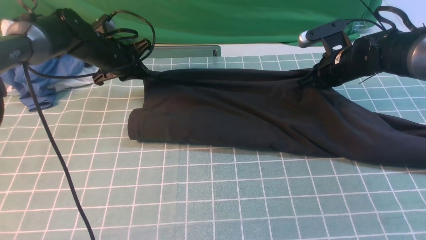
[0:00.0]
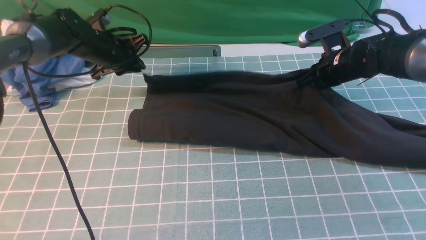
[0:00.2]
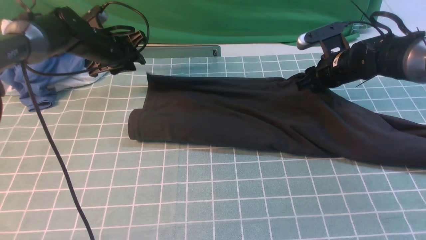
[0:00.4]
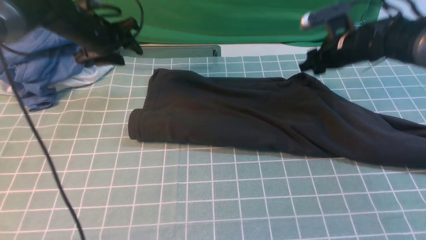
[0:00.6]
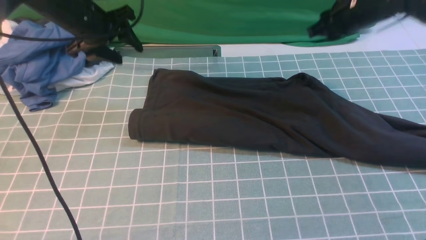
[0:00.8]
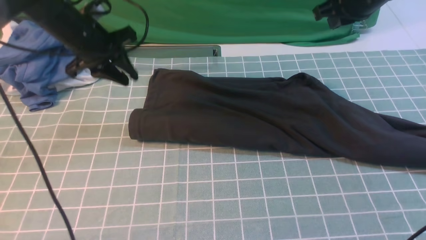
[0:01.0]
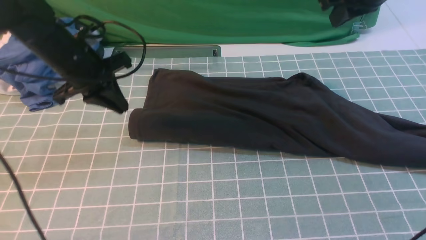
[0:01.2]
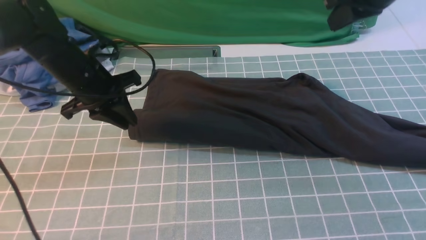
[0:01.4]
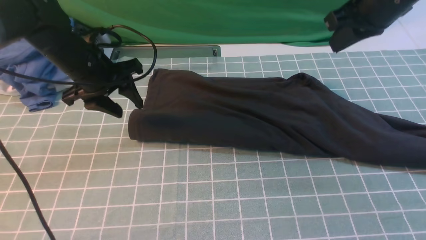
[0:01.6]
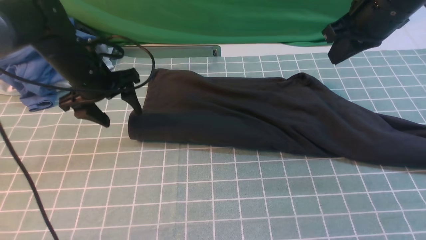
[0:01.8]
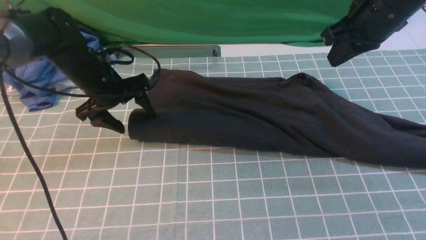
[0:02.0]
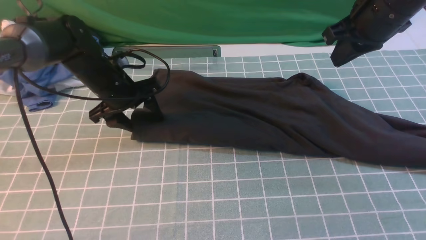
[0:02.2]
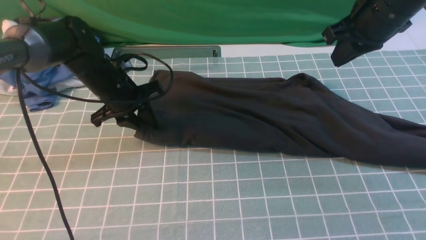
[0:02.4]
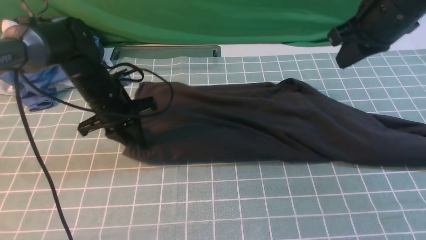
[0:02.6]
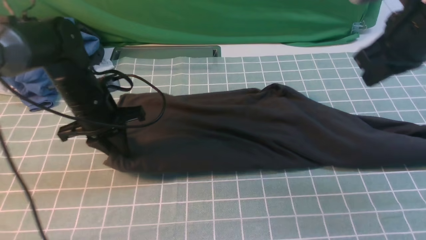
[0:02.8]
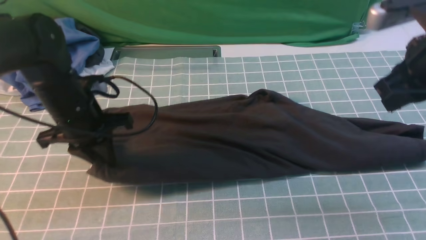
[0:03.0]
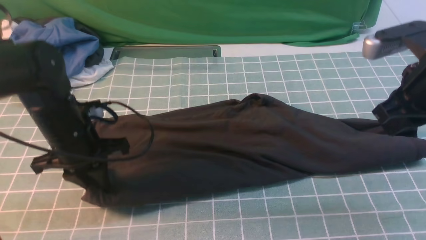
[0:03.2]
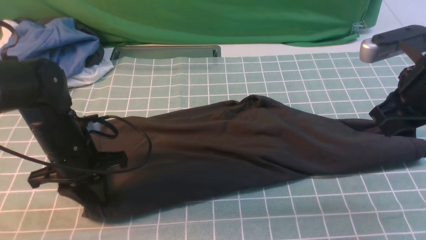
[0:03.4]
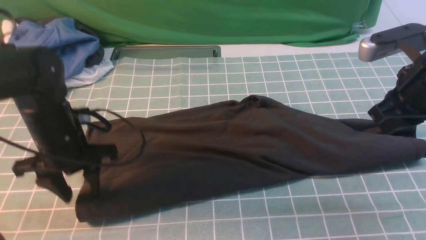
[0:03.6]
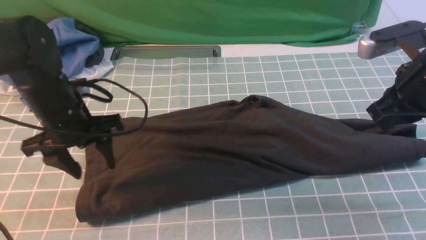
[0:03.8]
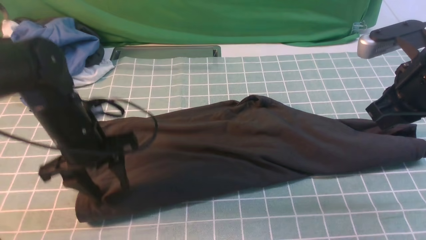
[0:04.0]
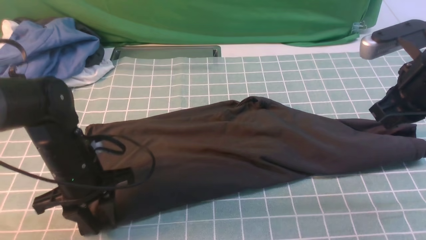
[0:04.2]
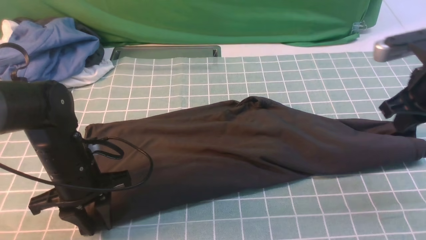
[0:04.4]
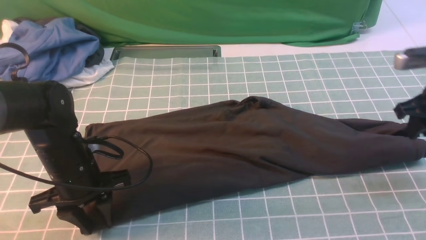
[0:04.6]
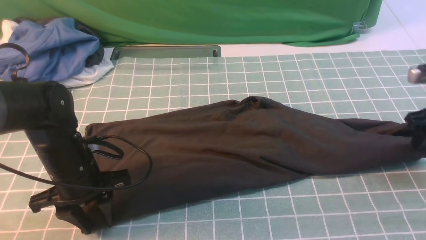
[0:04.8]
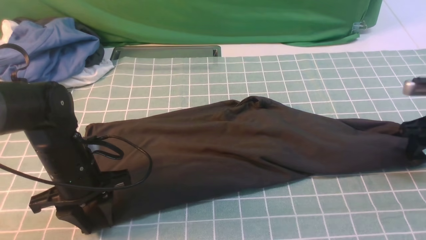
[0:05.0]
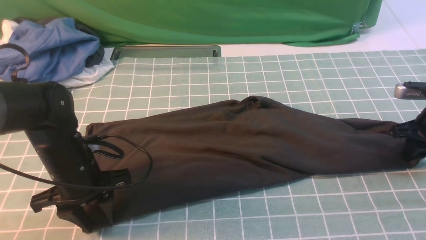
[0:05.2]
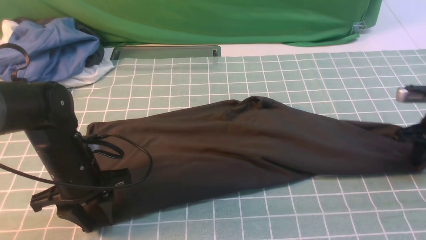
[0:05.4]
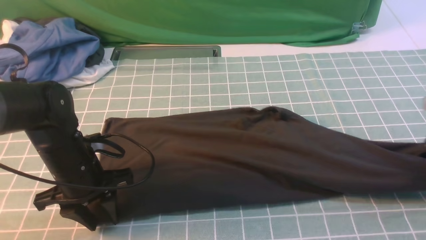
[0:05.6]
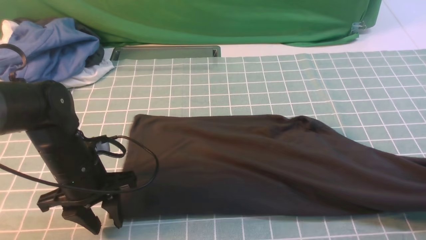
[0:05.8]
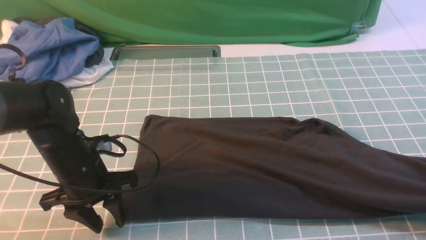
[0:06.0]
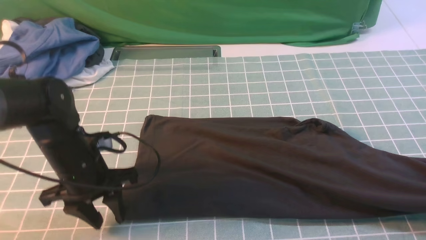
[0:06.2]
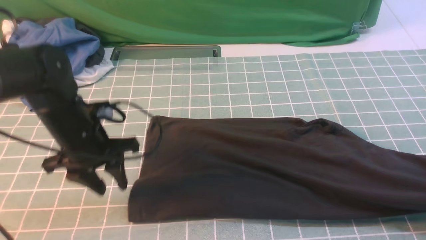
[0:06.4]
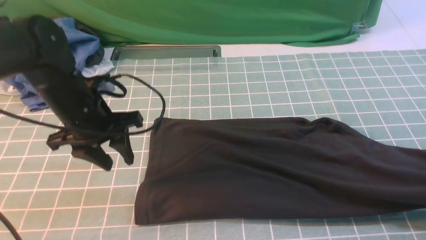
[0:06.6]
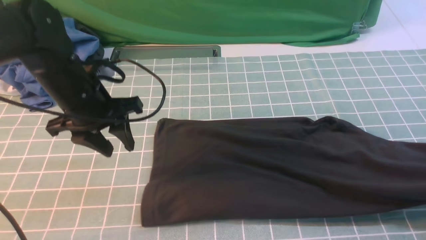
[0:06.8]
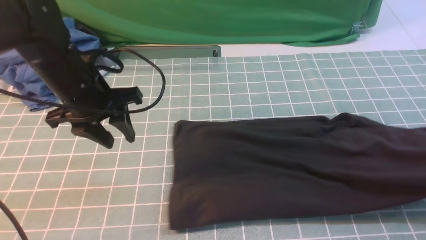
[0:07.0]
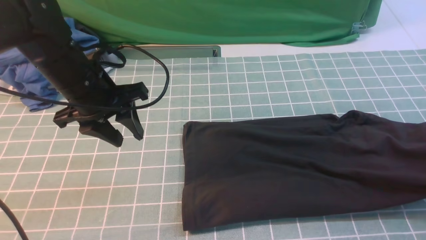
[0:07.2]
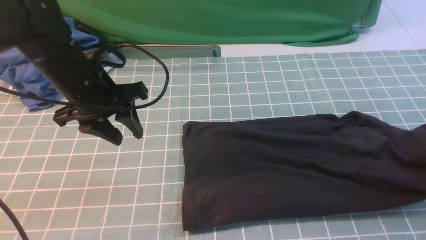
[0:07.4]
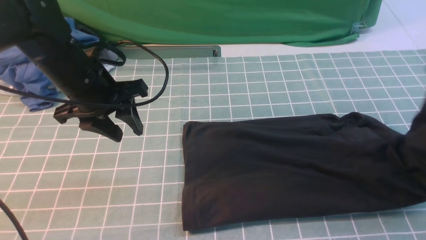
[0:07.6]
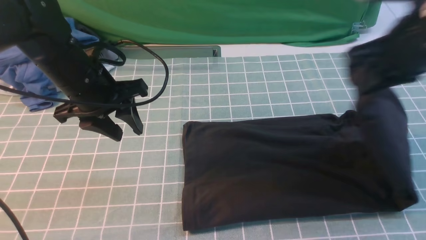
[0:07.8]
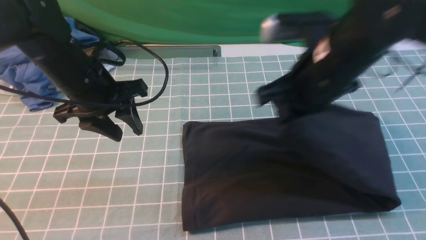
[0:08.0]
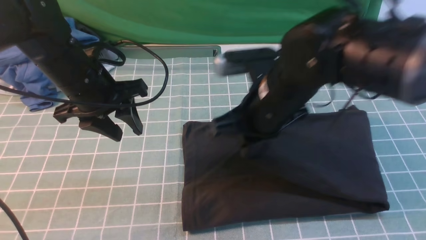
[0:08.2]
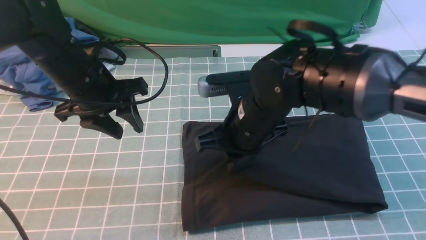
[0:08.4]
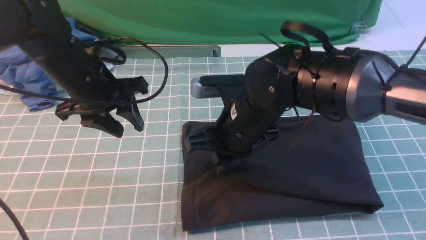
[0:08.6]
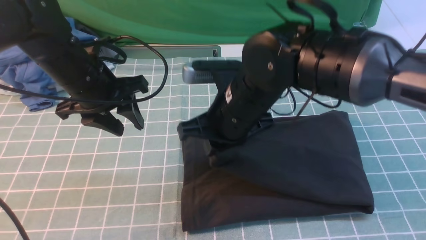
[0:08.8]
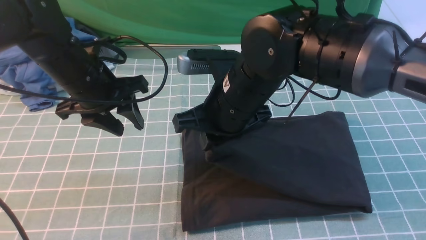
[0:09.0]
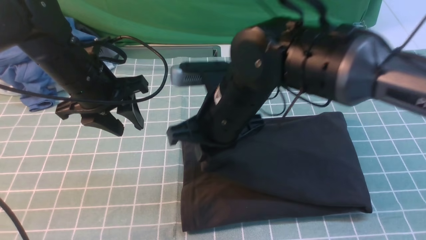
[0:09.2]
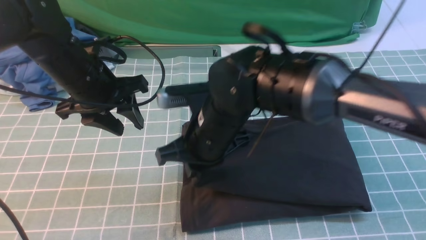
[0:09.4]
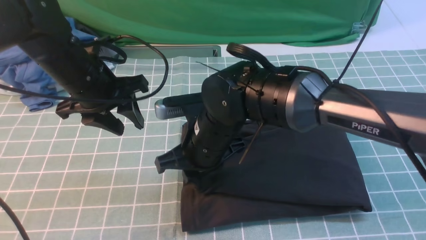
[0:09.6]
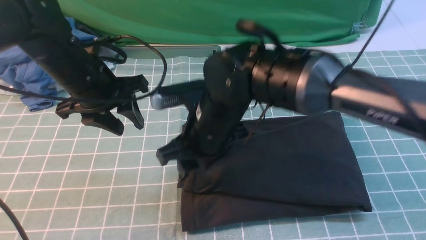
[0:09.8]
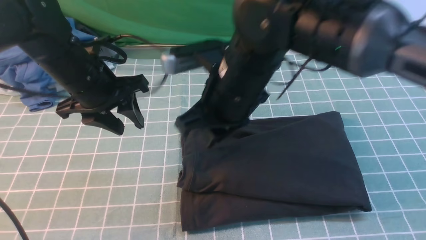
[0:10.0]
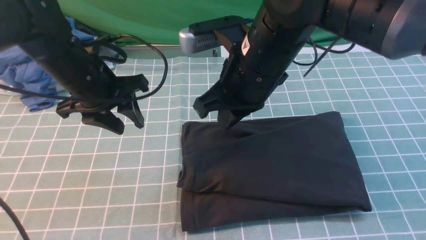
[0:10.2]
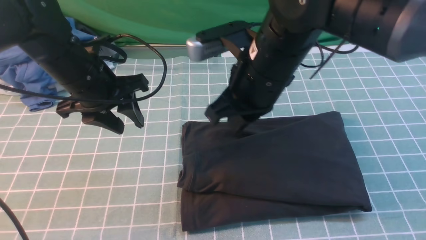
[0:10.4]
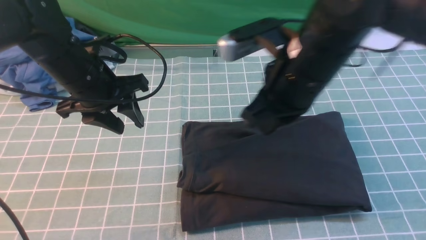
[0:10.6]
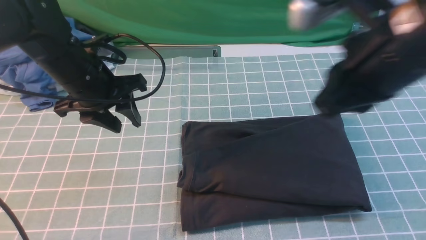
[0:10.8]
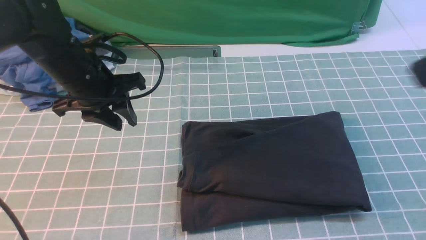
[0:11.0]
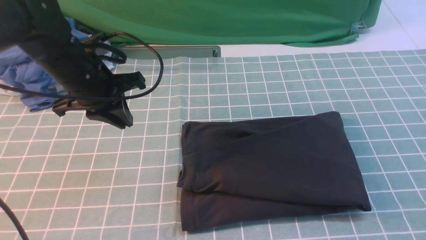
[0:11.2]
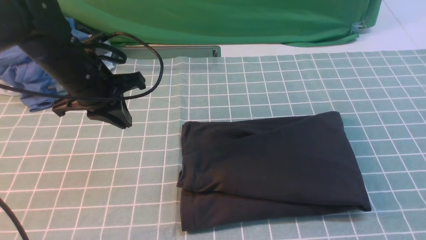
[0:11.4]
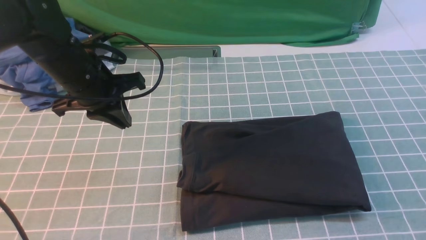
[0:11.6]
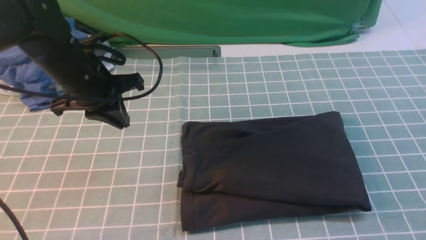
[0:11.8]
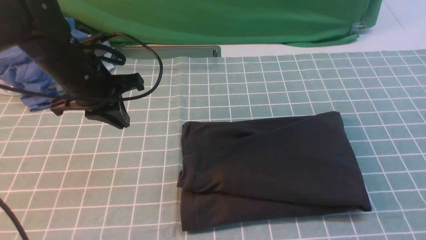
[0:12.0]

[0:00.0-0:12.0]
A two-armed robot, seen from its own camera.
Step, 0:01.2 to 0:06.6: use the right arm to clamp the right edge of the fabric.
Step, 0:06.8 to 0:10.0: use the right arm to drag the right edge of the fabric to the left and folds it over the left edge.
0:00.0 to 0:01.6: The left gripper heads backward, covering roughly 10 cm, and opens its fingers, while the right gripper travels upward by some 20 cm, and opens, then closes again.
0:01.6 to 0:03.0: Both grippers move backward, some 10 cm. The left gripper closes its fingers.
0:03.0 to 0:04.4: The right gripper is displaced downward by approximately 5 cm. The left gripper goes some 5 cm backward.
0:04.4 to 0:06.0: The right gripper moves to the right and backward, roughly 15 cm, and opens, then closes once more.
0:06.0 to 0:07.6: The left gripper moves upward and forward, approximately 10 cm. Meanwhile the right gripper travels to the left, upward and forward by approximately 20 cm.
0:07.6 to 0:09.0: The right gripper is displaced to the left by roughly 30 cm.
0:09.0 to 0:10.4: The right gripper travels upward and to the right by roughly 10 cm, and opens, then closes again.
0:10.4 to 0:12.0: The left gripper closes. Meanwhile the right gripper goes roughly 35 cm backward and to the right.

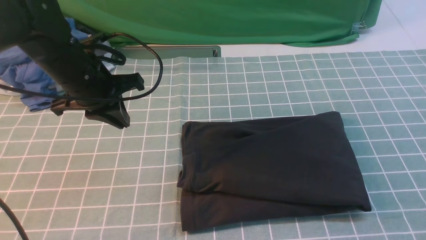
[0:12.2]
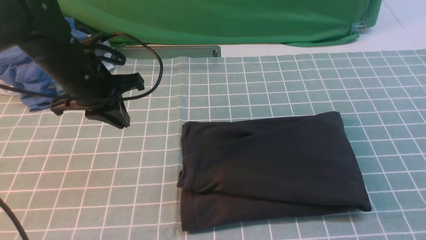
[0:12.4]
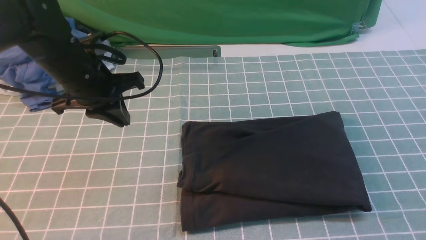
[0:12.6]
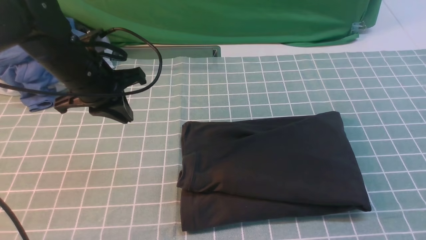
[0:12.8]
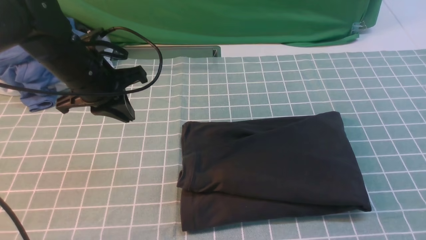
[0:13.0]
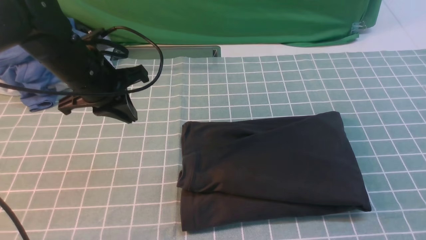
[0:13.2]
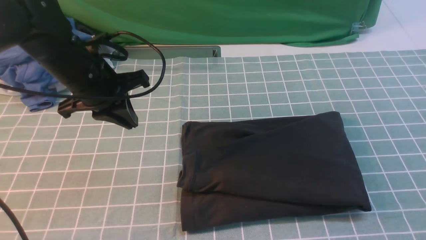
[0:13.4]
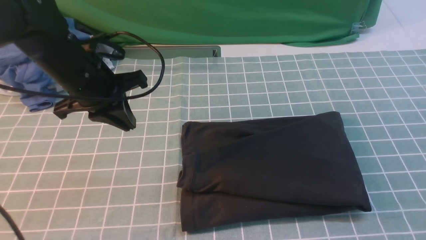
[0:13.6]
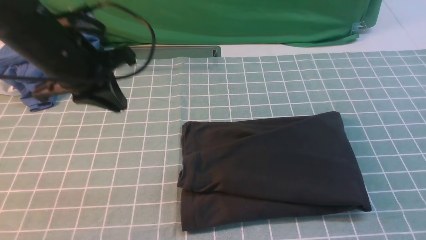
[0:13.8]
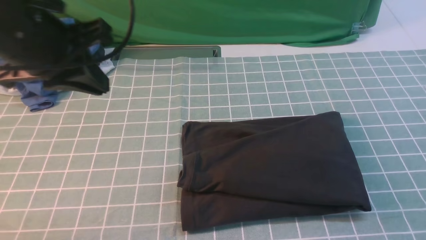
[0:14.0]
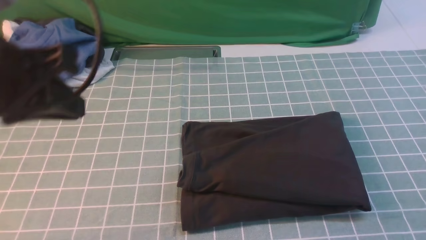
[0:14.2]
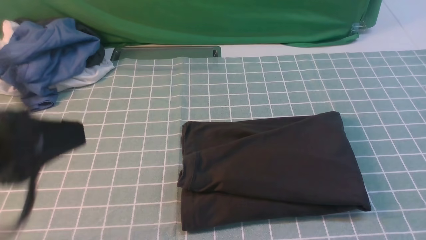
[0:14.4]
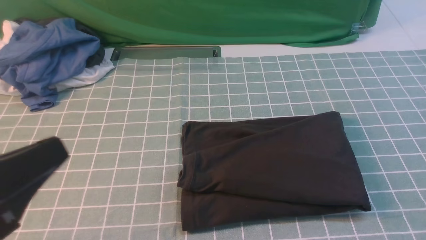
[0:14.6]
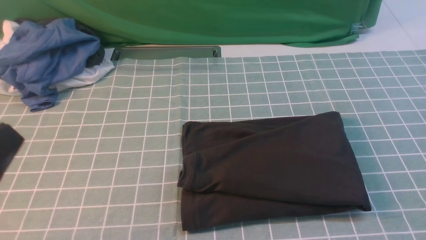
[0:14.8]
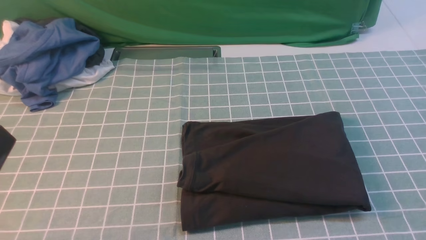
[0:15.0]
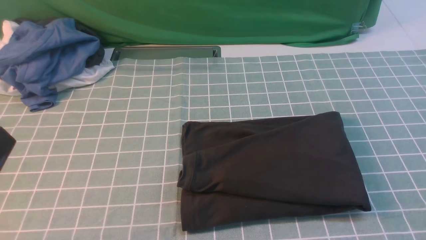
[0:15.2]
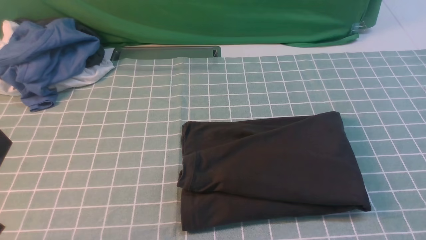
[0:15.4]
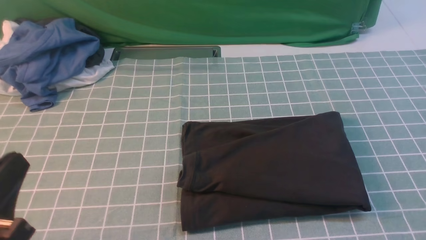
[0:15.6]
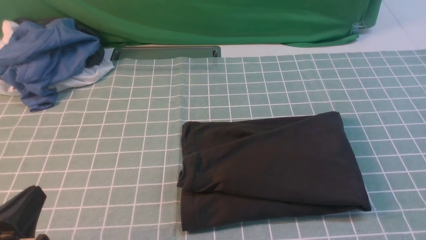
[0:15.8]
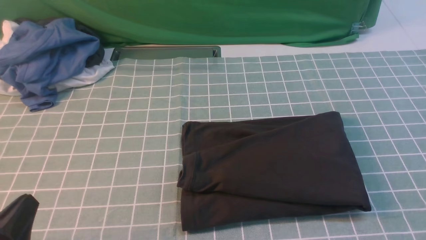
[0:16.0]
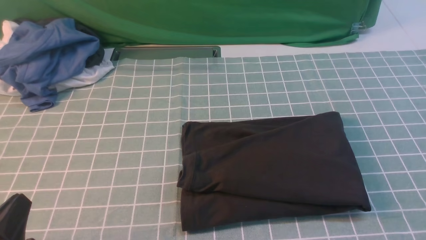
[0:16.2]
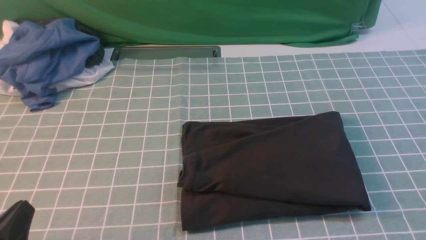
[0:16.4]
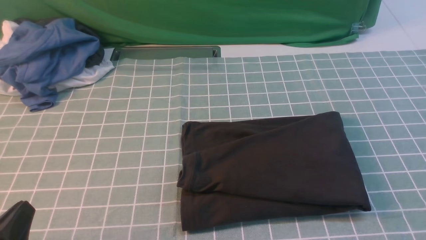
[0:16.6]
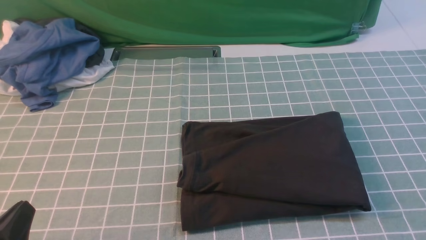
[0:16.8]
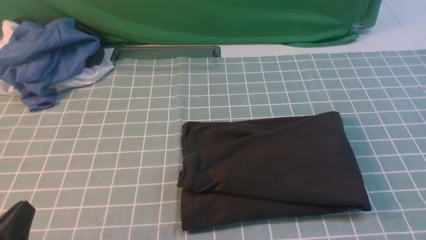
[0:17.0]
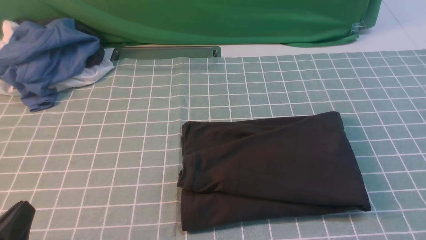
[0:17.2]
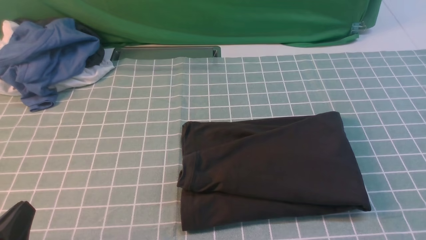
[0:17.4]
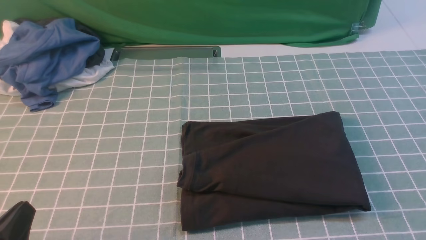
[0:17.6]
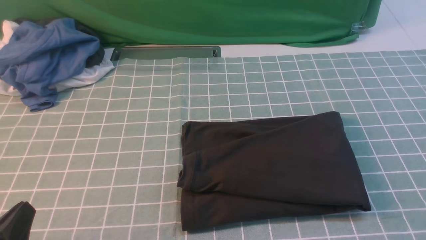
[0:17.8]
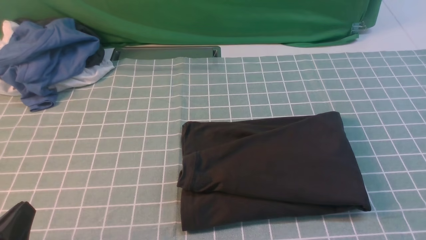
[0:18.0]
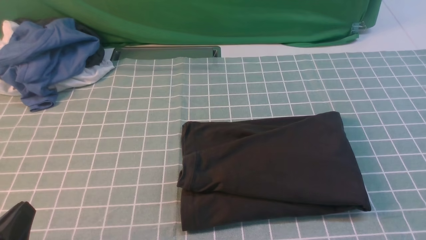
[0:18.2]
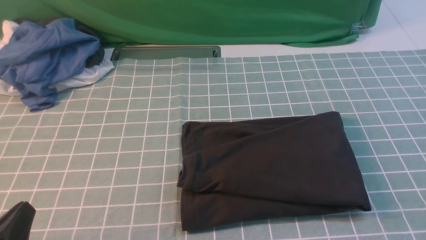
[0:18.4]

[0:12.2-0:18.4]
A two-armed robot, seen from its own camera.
0:12.2 to 0:13.8: The left gripper shifts some 5 cm upward.
0:13.8 to 0:15.4: The left gripper goes about 25 cm backward.
0:15.4 to 0:16.8: The left gripper travels downward by some 10 cm.
0:16.8 to 0:18.4: The two grippers keep their place.
